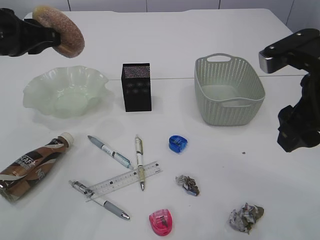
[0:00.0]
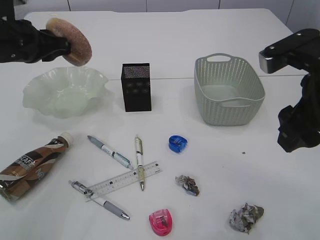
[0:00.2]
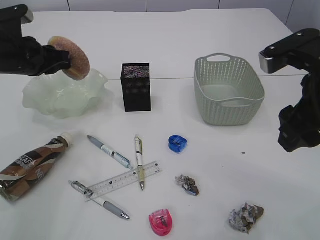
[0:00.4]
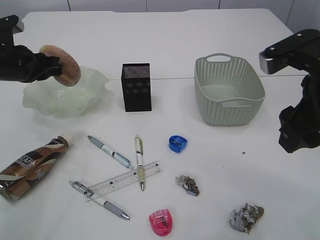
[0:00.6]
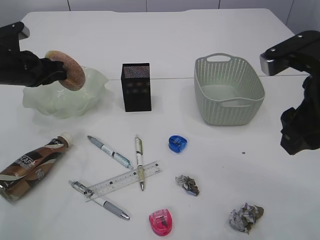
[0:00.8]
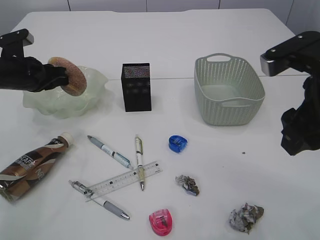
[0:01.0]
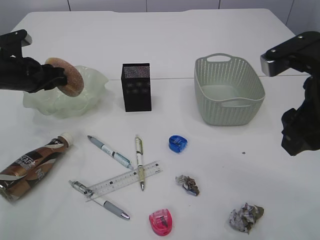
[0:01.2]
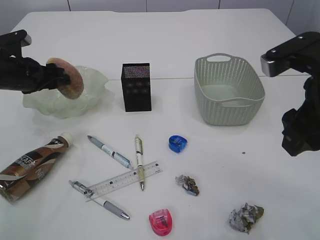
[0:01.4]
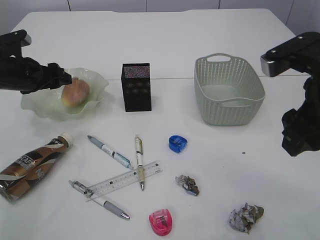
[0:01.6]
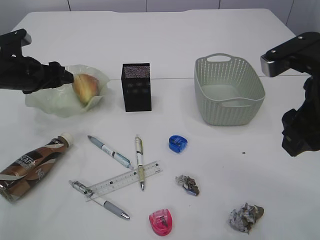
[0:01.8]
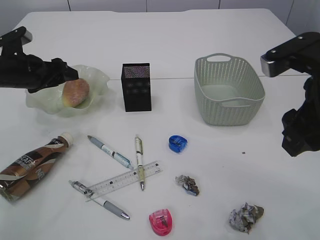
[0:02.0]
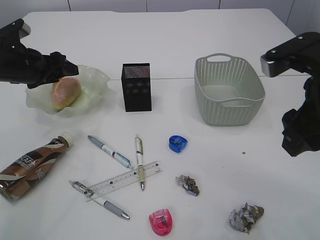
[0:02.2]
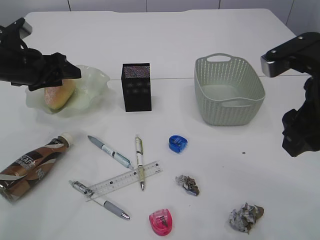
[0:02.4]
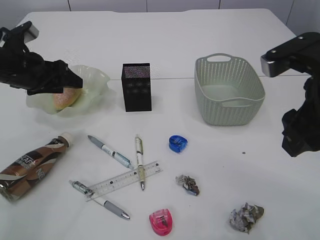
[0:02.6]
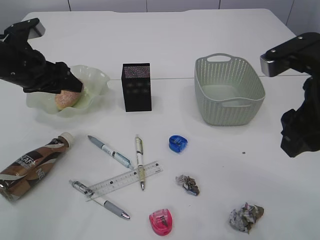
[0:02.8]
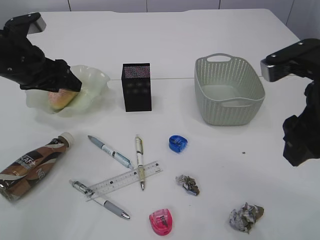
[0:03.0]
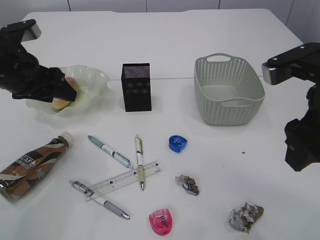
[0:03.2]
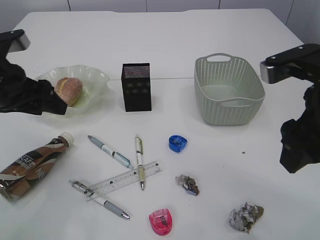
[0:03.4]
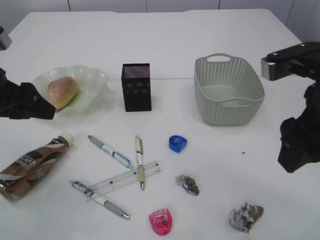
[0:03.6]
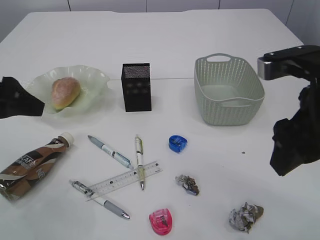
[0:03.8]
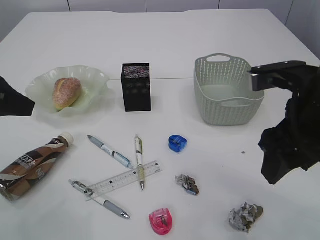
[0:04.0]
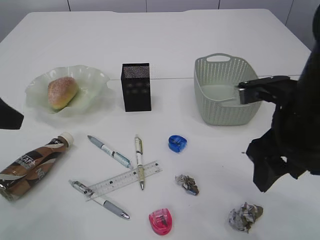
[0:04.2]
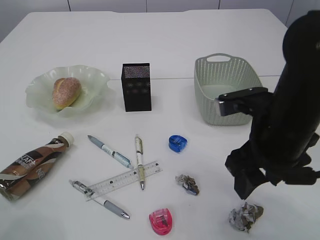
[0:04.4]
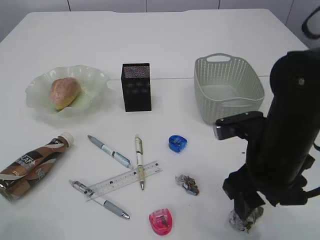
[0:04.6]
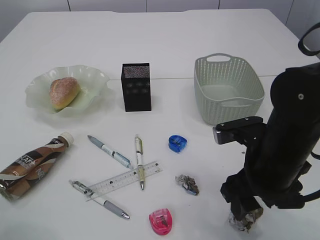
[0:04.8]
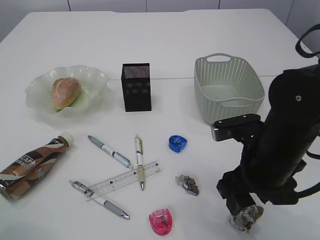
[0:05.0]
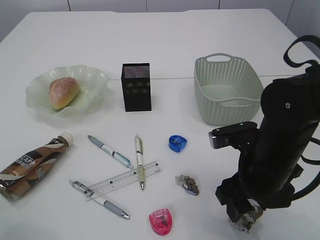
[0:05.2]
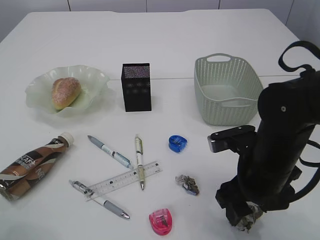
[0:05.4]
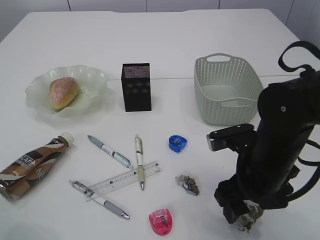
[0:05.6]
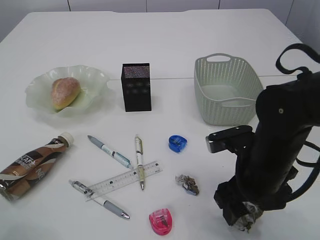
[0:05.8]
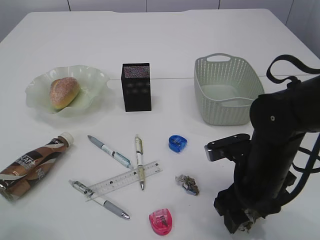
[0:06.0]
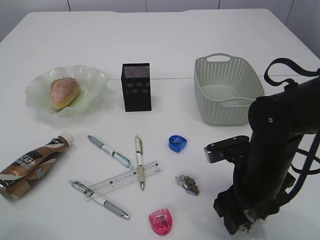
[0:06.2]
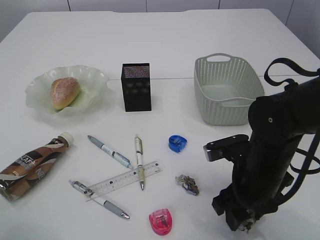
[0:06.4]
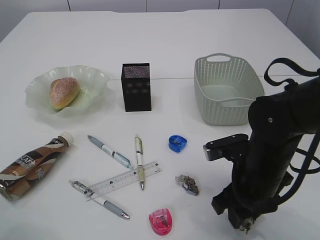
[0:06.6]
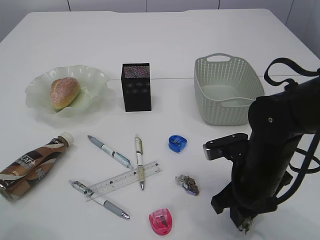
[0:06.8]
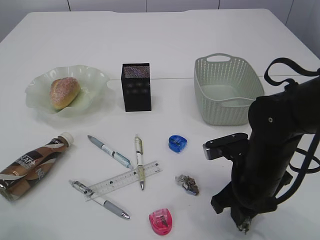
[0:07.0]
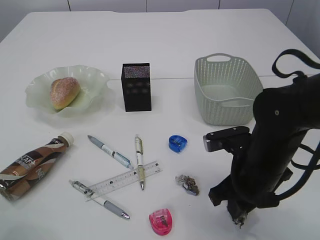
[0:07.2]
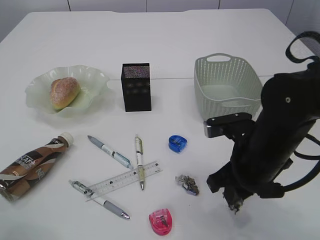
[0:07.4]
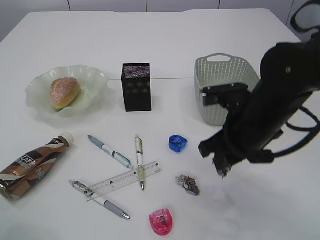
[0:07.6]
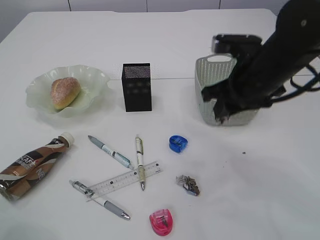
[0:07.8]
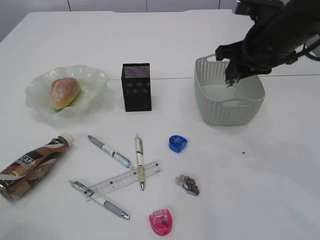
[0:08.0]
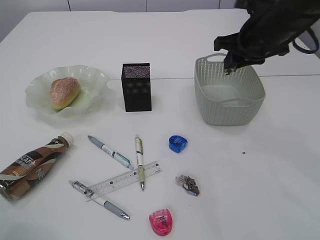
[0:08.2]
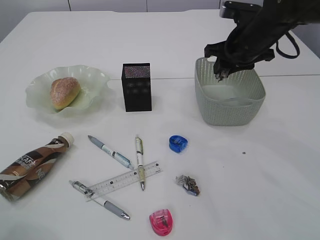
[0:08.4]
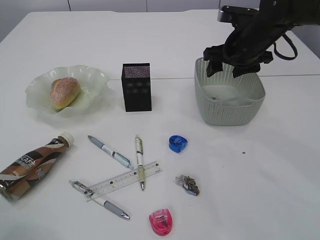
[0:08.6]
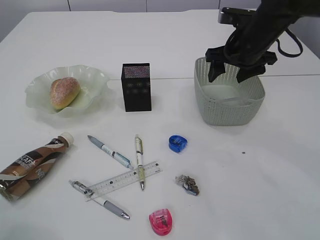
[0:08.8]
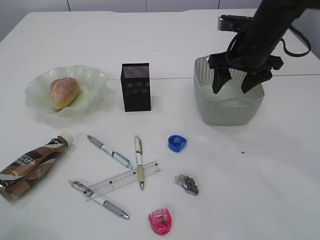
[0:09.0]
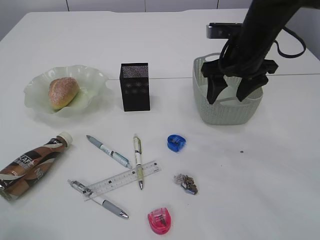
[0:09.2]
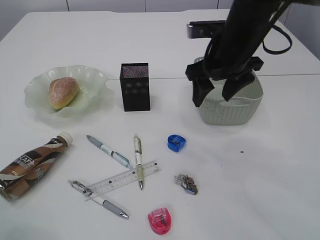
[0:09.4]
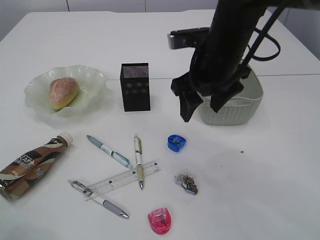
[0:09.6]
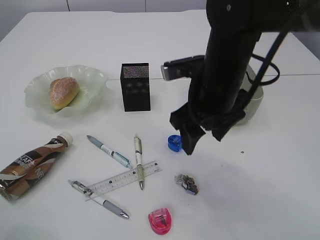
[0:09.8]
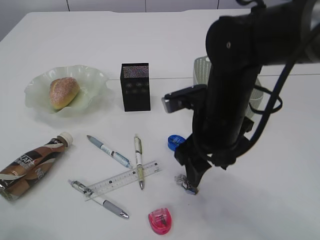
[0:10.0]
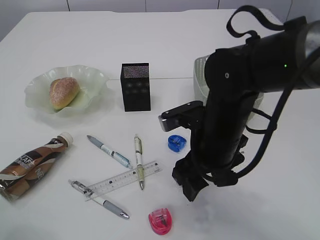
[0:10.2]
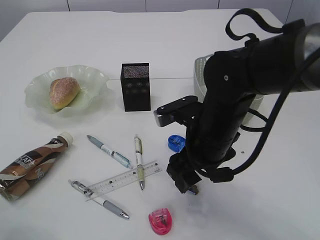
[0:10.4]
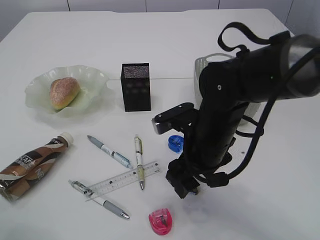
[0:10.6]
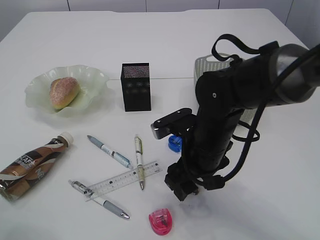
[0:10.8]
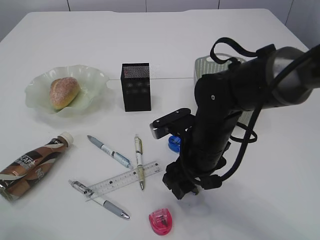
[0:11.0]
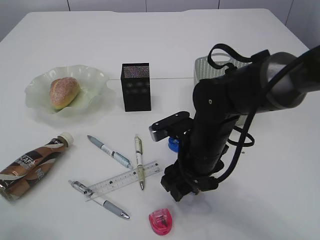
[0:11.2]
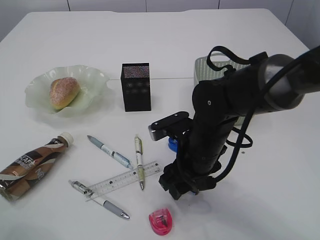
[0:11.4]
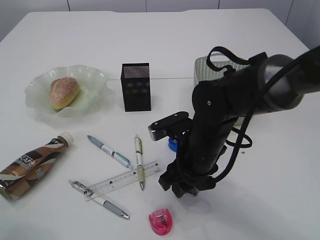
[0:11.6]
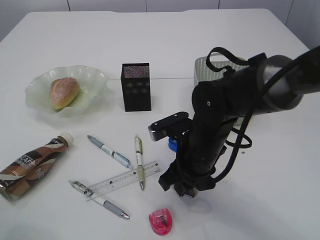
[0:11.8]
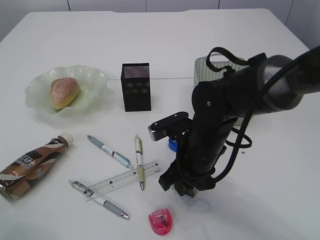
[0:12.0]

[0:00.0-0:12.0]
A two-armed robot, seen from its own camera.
Step, 0:00.0 to 0:03.8: place the bread in the plate.
Step, 0:04.0 to 0:07.4: Pick up the waste paper.
Step, 0:07.6 to 0:08.8: Place the waste paper in the basket.
0:00.0 to 0:01.6: The left gripper moves downward and forward, about 15 cm, and opens its fingers.
0:01.6 to 0:03.0: The left gripper travels upward and backward by roughly 10 cm.
0:03.0 to 0:04.4: The right gripper is displaced downward by roughly 5 cm; the left gripper goes some 15 cm backward.
0:04.4 to 0:06.0: The right gripper goes about 10 cm downward.
0:06.0 to 0:07.6: The right gripper shifts approximately 5 cm upward, and closes its fingers.
0:07.6 to 0:09.0: The right gripper shifts about 15 cm forward, and opens.
0:09.0 to 0:10.4: The right gripper is displaced backward, to the left and downward by some 20 cm.
0:10.4 to 0:12.0: The right gripper changes place by roughly 5 cm, and closes.

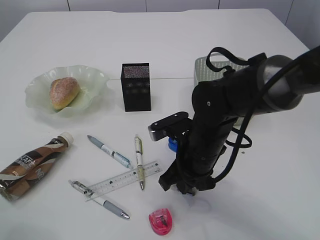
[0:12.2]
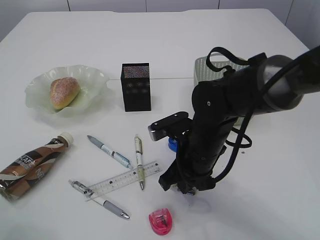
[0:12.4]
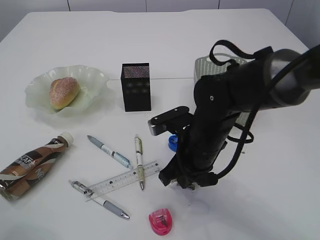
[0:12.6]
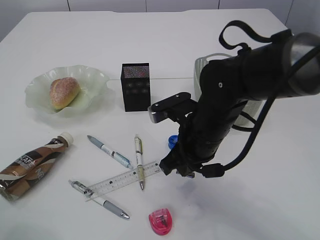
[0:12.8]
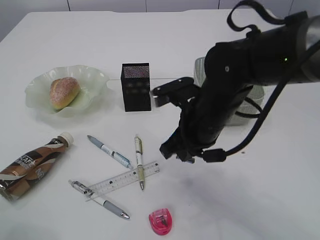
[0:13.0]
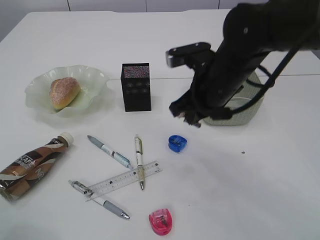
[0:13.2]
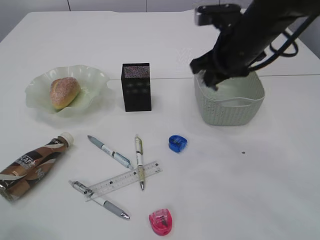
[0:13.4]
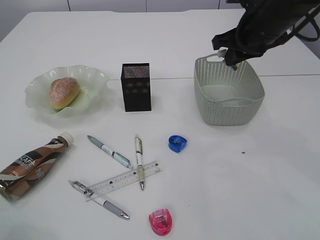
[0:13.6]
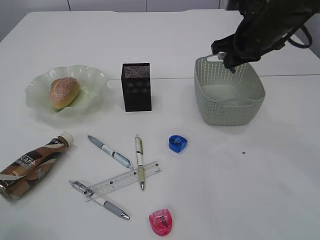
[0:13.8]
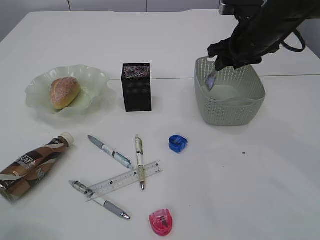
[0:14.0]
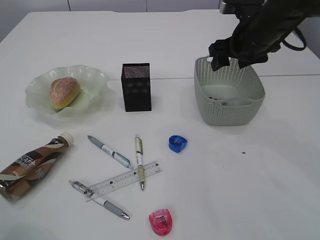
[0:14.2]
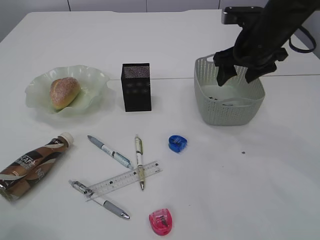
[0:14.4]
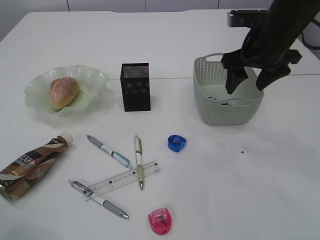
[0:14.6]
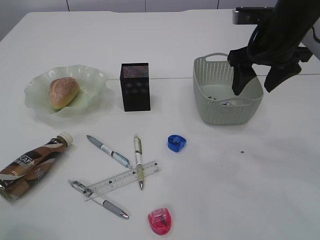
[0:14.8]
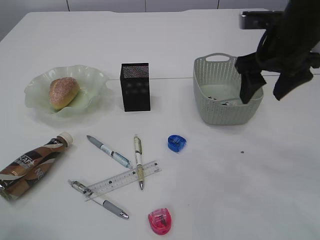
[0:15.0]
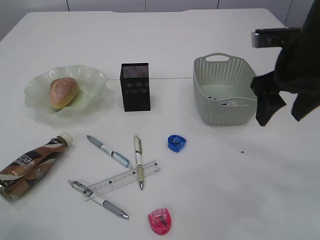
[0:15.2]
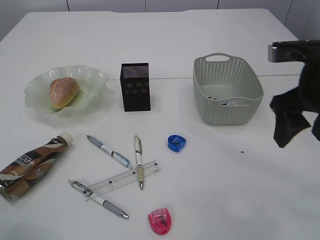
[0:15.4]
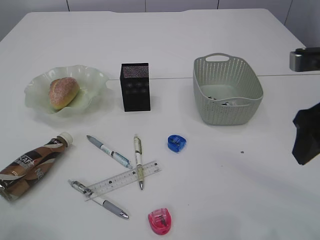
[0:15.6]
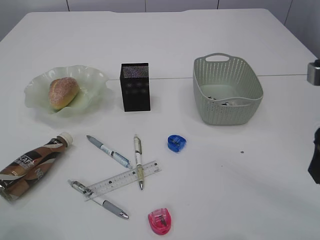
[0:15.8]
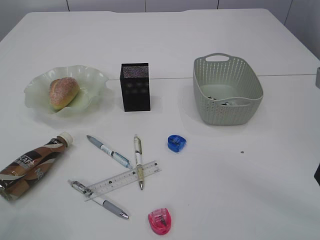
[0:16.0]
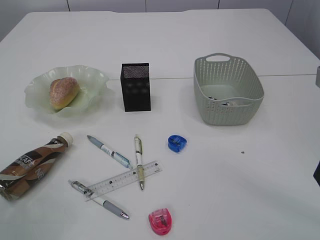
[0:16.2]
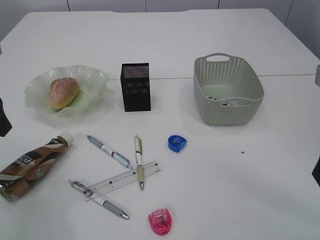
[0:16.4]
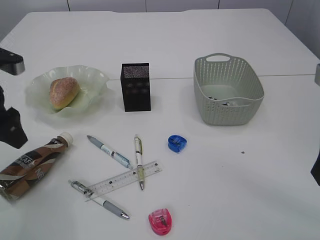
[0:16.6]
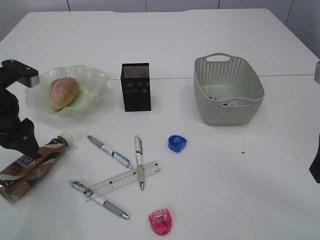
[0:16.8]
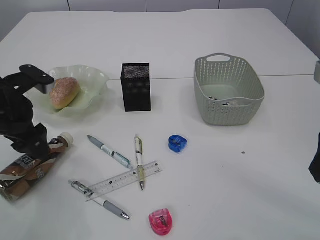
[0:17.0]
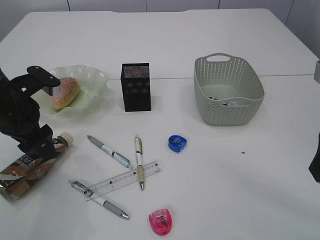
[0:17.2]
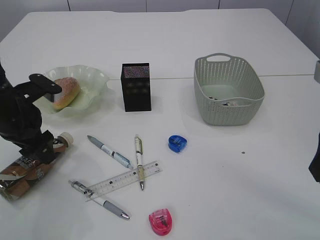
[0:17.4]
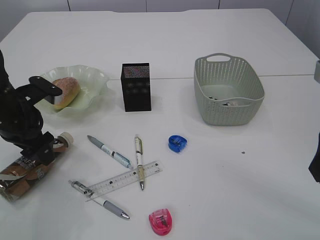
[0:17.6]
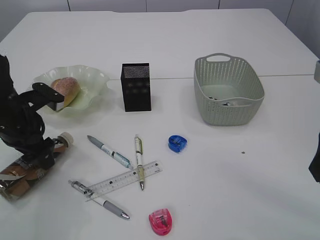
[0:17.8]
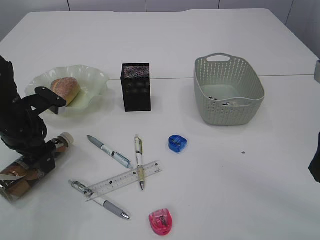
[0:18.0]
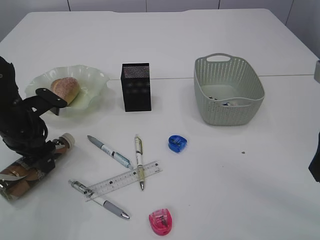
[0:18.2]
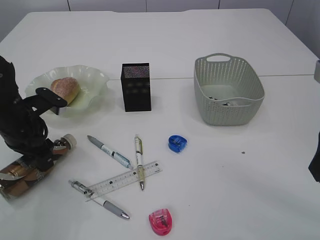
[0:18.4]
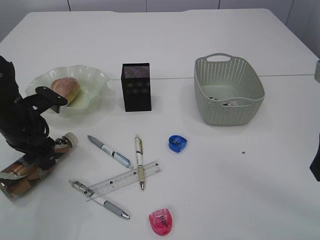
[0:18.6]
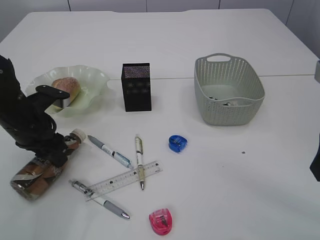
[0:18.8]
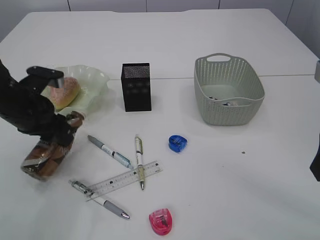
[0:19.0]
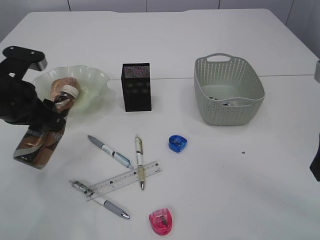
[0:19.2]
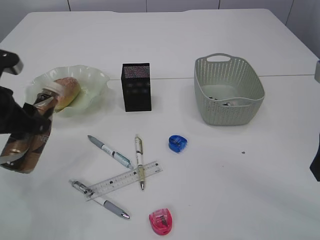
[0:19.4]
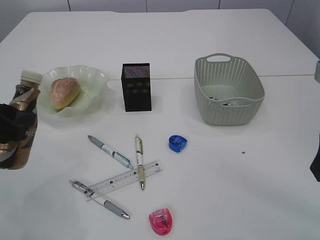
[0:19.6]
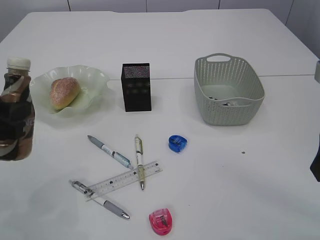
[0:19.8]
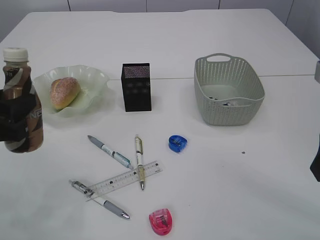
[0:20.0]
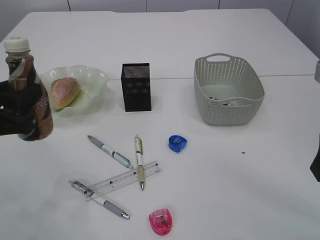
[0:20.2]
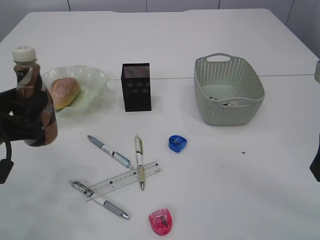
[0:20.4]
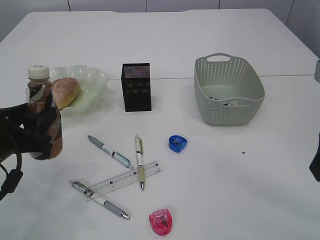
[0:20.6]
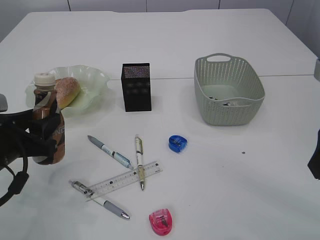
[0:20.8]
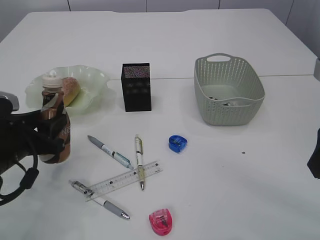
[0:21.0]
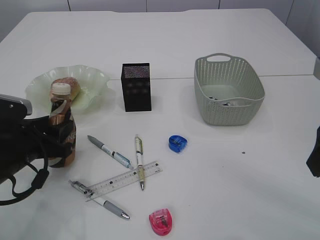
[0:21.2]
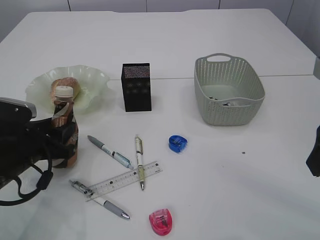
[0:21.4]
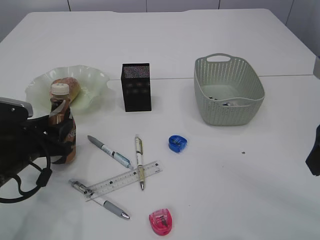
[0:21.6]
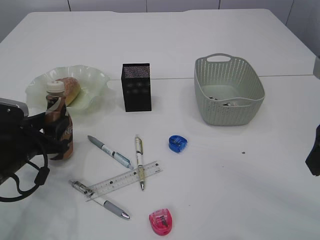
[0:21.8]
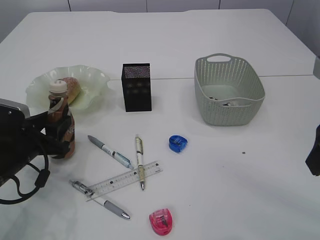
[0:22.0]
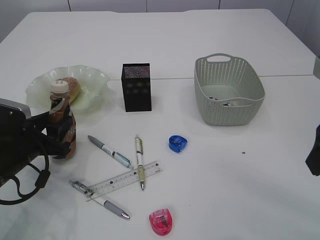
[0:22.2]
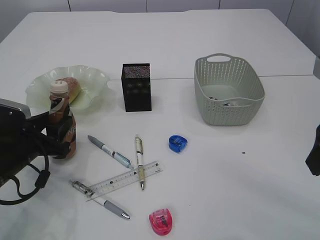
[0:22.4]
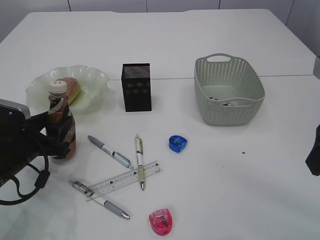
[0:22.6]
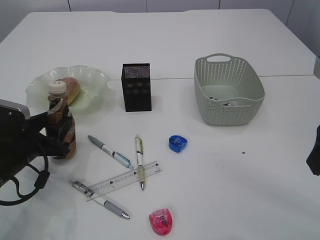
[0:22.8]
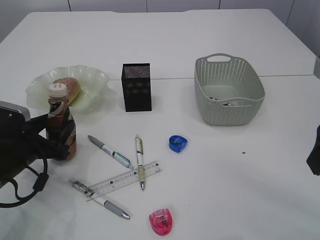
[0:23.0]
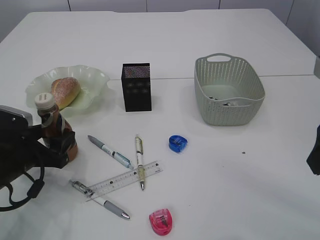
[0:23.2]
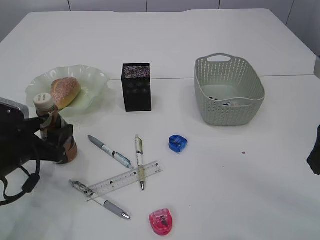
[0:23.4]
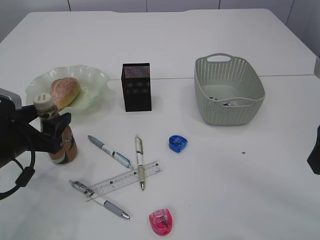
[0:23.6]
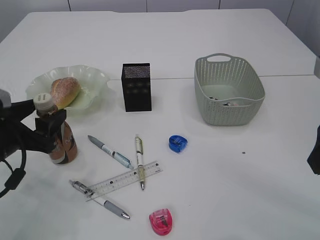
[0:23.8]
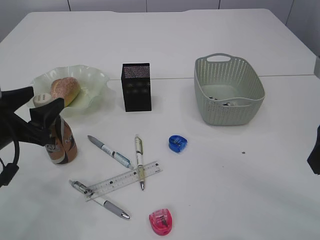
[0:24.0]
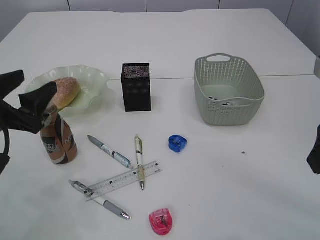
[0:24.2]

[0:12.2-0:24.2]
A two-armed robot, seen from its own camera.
Step, 0:13.0 to 0:14.4: Place the waste paper in the basket.
Step, 0:14.6 to 0:19.4: Pick up the bottle with the left arm.
0:12.2 to 0:13.8: The right gripper heads upward, forward and to the right, covering about 25 cm.
0:13.8 to 0:15.2: The right gripper moves backward, roughly 10 cm, and opens its fingers.
0:15.2 to 0:16.6: The left gripper shifts about 10 cm forward. Meanwhile the right gripper goes about 15 cm backward.
0:16.6 to 0:18.2: The left gripper heads downward, covering some 10 cm.
0:18.2 to 0:19.8: The left gripper travels backward and upward by roughly 15 cm.
0:19.8 to 0:21.2: The left gripper moves downward, some 10 cm.
0:21.2 to 0:22.6: The grippers make only small movements.
0:22.6 to 0:24.2: The left gripper is displaced upward by about 10 cm.
